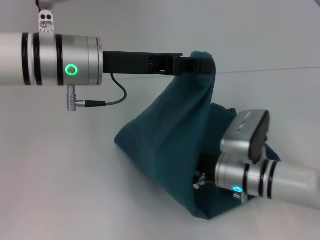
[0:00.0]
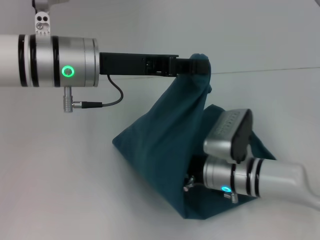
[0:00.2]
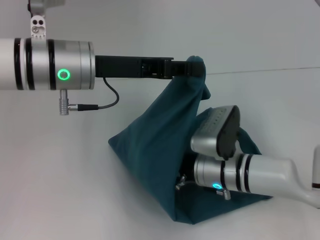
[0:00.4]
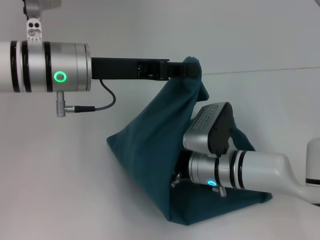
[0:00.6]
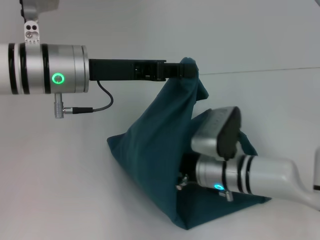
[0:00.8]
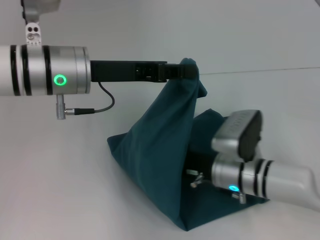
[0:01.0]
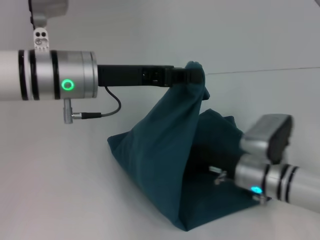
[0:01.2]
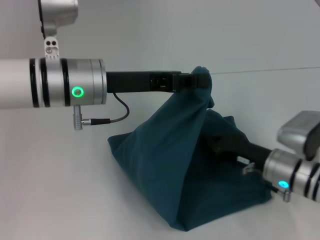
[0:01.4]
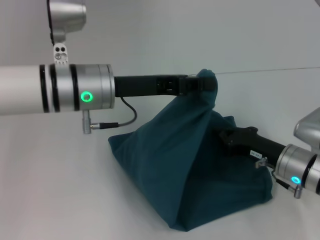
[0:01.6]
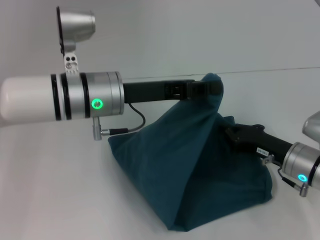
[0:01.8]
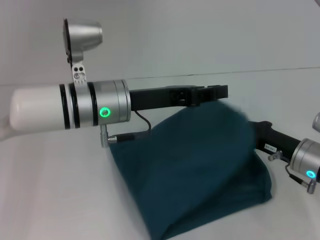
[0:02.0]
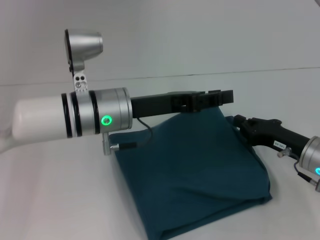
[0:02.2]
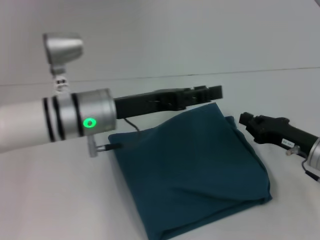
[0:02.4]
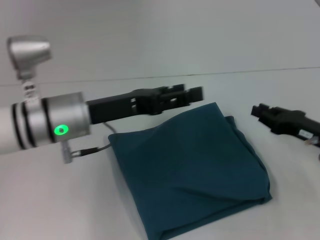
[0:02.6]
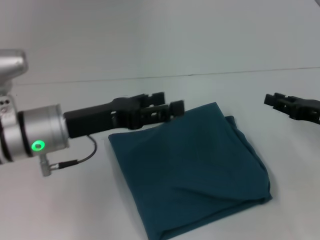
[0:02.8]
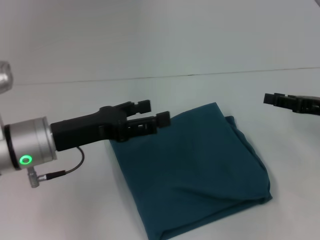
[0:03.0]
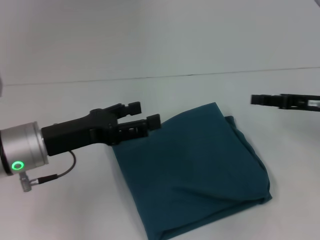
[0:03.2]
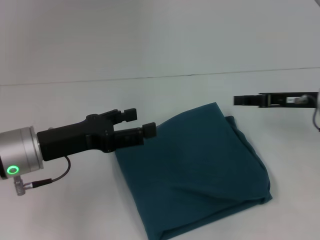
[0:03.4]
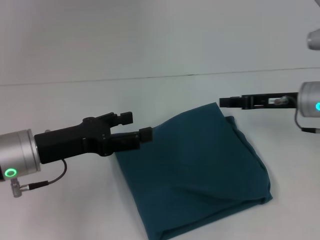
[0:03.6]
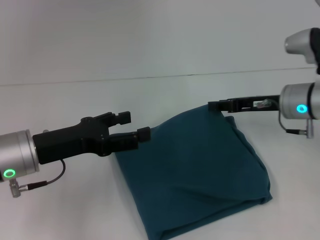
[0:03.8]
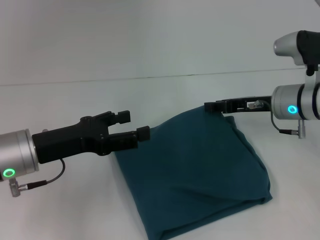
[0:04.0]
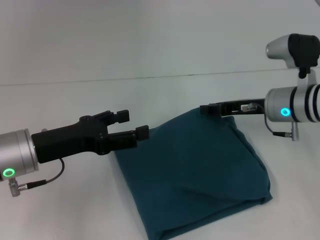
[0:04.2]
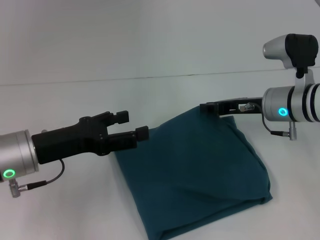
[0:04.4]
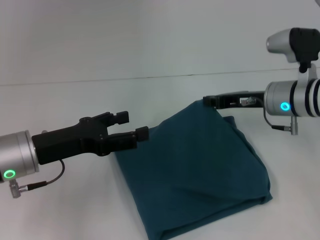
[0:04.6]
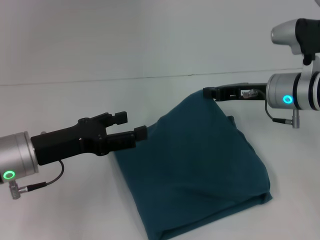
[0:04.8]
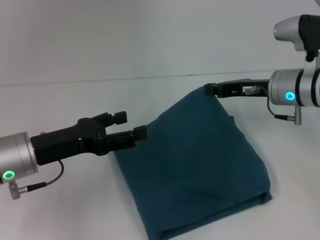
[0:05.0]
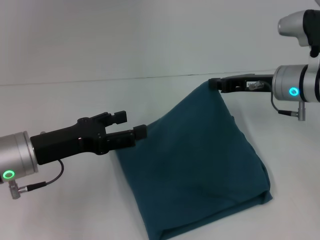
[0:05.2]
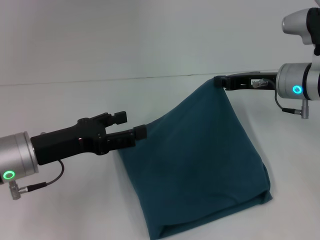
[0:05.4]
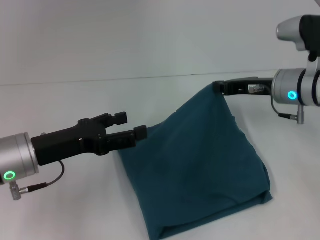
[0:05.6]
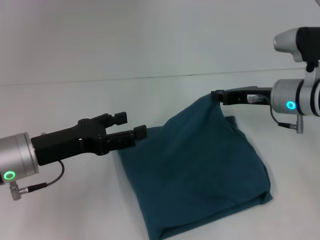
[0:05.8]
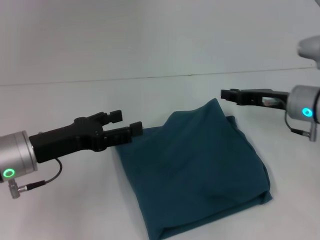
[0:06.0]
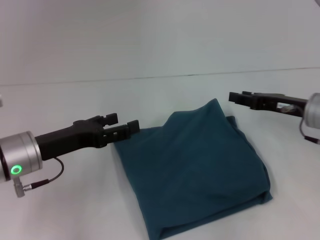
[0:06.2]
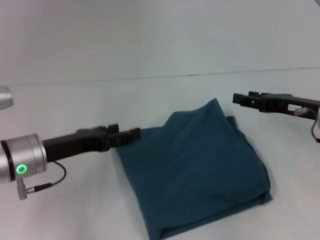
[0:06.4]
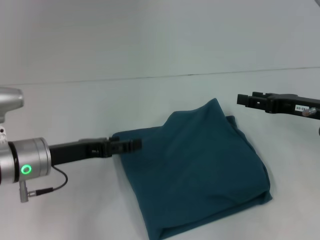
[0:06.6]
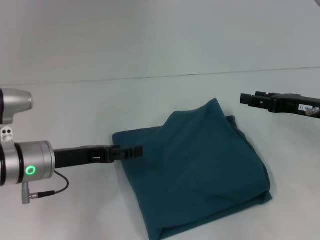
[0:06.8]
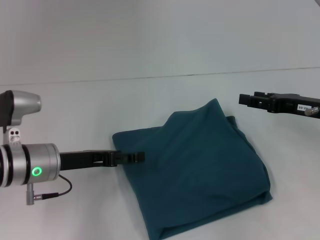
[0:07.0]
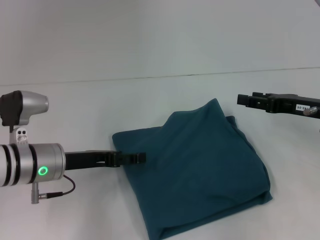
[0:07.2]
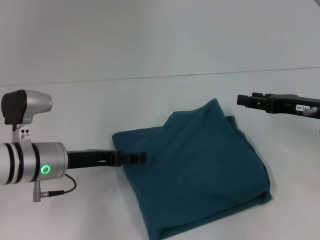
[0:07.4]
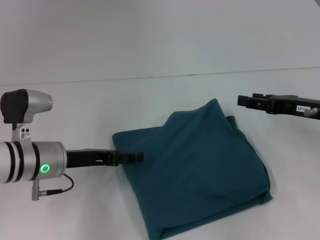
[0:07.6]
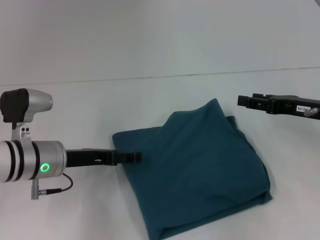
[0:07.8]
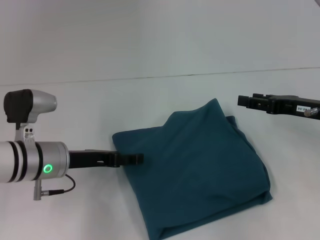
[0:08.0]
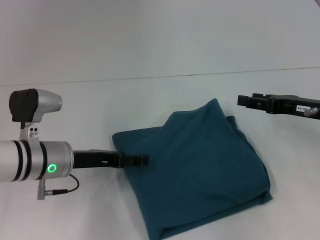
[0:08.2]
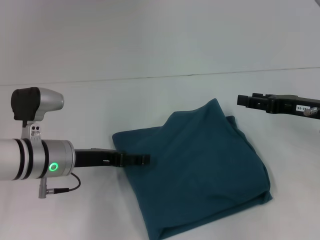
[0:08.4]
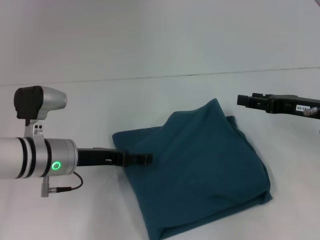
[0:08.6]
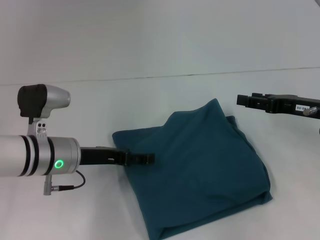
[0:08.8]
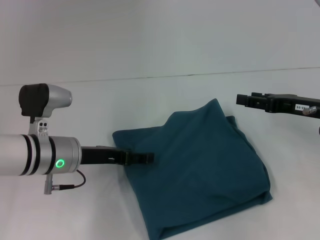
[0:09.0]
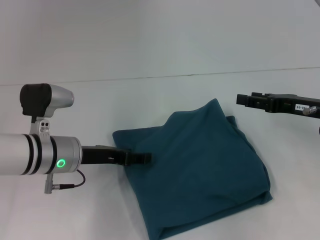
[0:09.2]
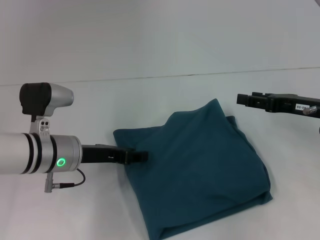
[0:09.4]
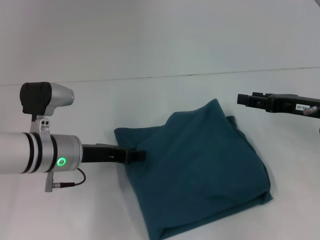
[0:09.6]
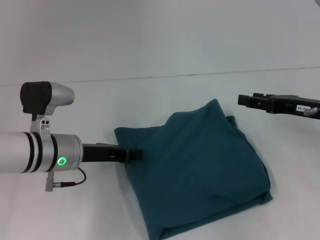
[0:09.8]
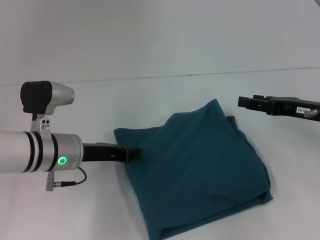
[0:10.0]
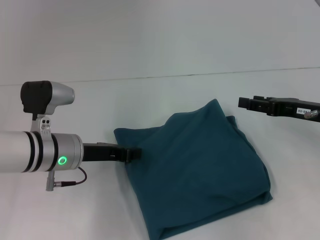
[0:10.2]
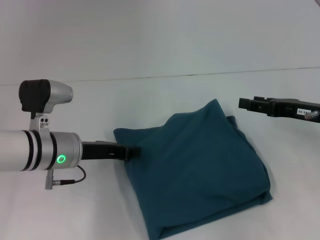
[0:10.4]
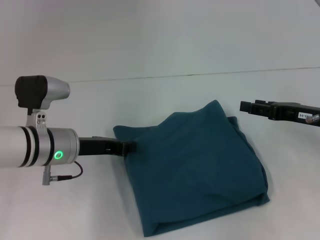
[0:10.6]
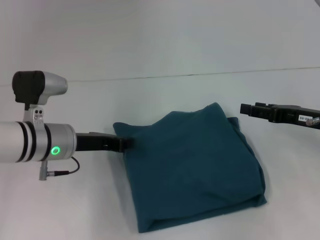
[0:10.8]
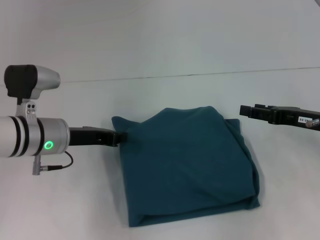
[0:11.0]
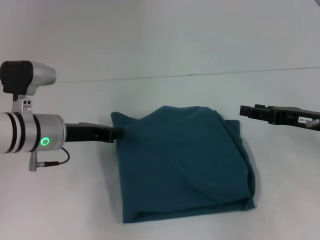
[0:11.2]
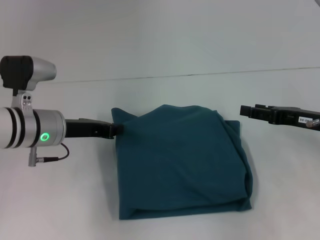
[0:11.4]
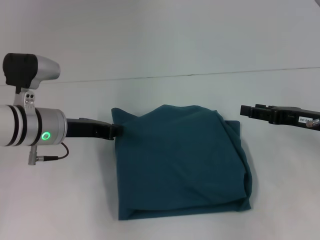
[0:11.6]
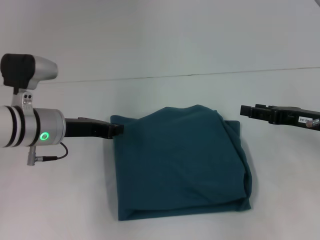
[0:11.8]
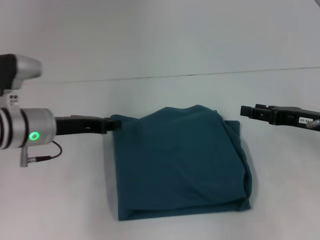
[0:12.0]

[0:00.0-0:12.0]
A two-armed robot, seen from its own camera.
Step, 0:01.2 to 0:02.2: Fold the clothes to the left.
0:00.0 to 0:01.6: The right gripper heads to the right, covering roughly 10 cm.
0:01.6 to 0:03.0: The left gripper goes about 10 cm to the left and backward, and opens up. Meanwhile the right gripper moves to the right and upward, about 15 cm, and opens its fingers.
0:03.0 to 0:04.4: The right gripper goes some 15 cm to the left and forward.
0:04.4 to 0:06.0: The grippers make only small movements.
0:06.0 to 0:07.6: The right gripper moves roughly 5 cm, and opens its fingers, while the left gripper ends up about 5 cm from where it was.
0:07.6 to 0:09.0: There are only small adjustments of the grippers.
0:09.0 to 0:10.4: The left gripper closes its fingers.

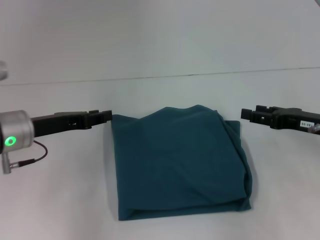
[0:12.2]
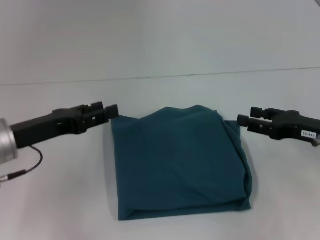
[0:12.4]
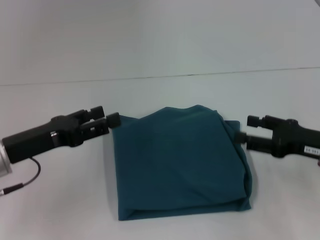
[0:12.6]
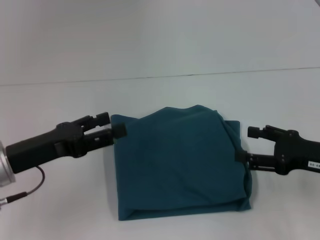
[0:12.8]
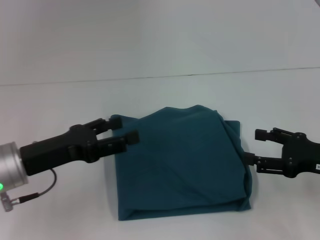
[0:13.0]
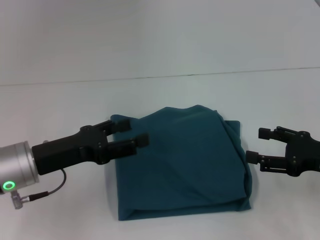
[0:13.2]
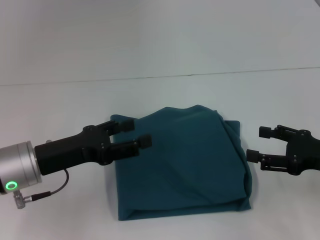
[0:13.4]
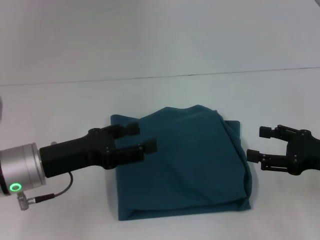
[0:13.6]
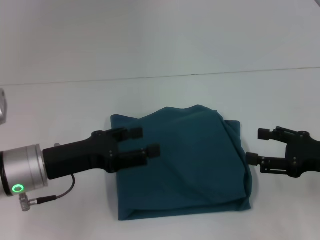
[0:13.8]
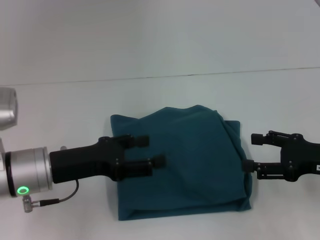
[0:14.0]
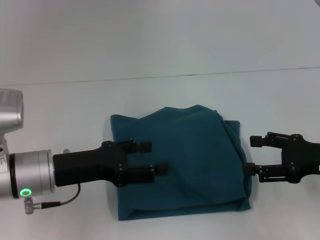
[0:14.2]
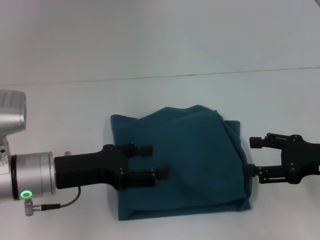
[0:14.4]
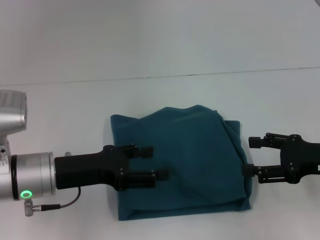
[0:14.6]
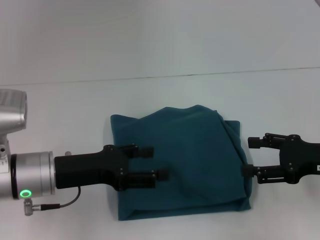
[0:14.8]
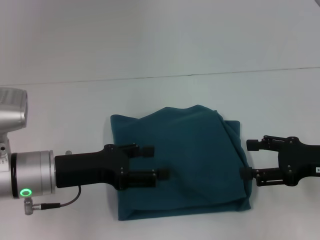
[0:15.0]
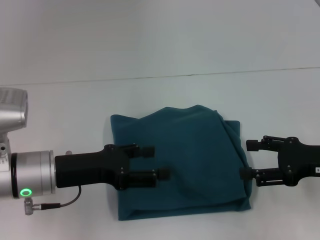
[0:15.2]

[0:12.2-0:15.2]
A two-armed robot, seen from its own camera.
0:12.2 to 0:13.8: Both grippers travel together backward, approximately 5 cm. The left gripper opens up.
0:13.8 to 0:15.2: The grippers make only small movements.

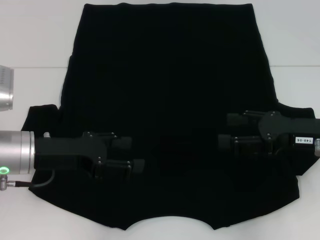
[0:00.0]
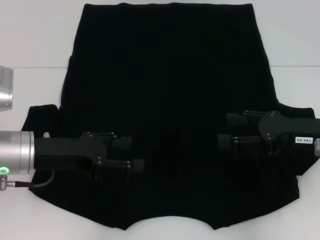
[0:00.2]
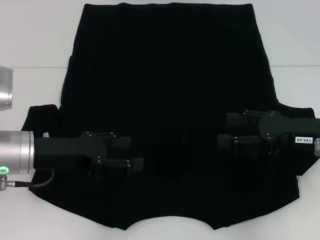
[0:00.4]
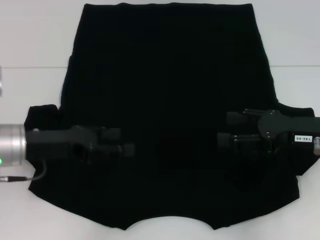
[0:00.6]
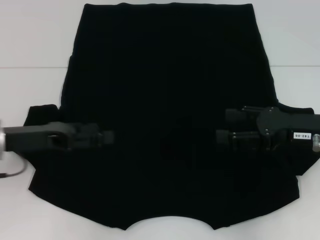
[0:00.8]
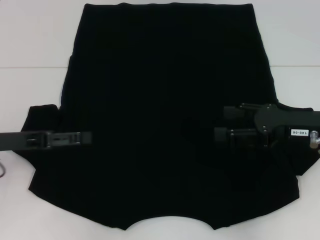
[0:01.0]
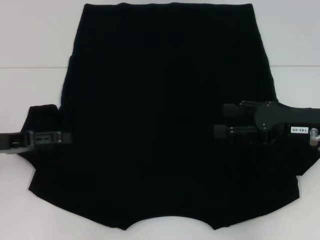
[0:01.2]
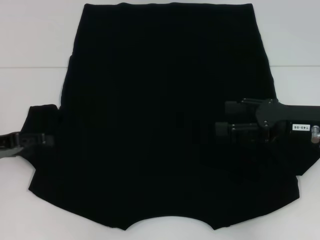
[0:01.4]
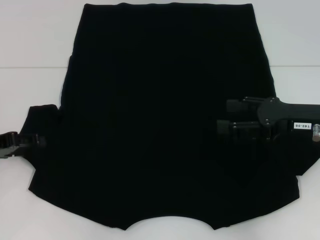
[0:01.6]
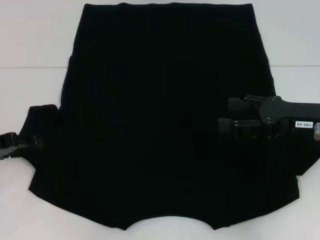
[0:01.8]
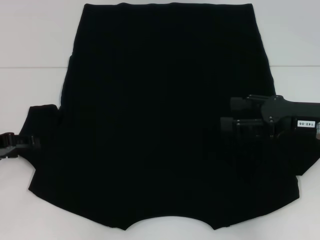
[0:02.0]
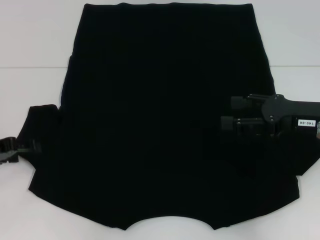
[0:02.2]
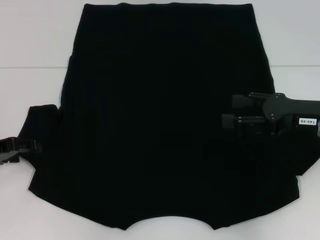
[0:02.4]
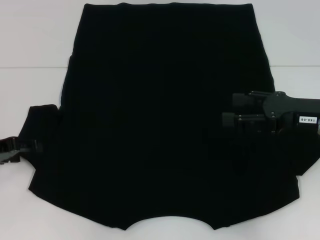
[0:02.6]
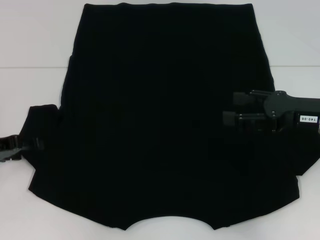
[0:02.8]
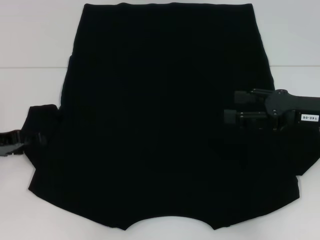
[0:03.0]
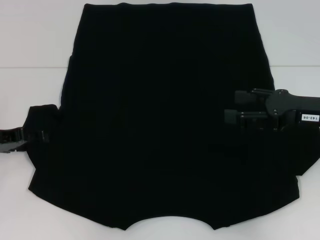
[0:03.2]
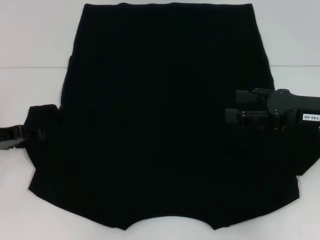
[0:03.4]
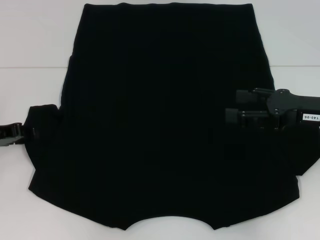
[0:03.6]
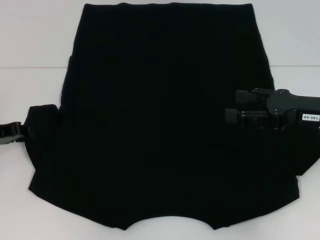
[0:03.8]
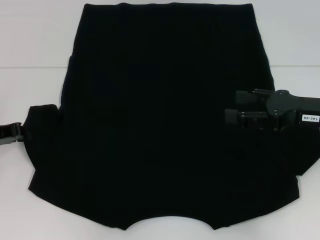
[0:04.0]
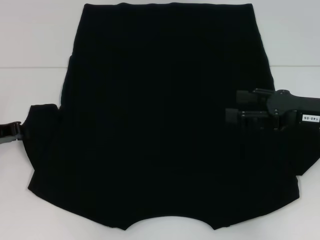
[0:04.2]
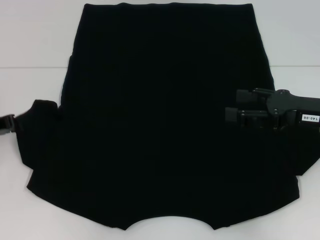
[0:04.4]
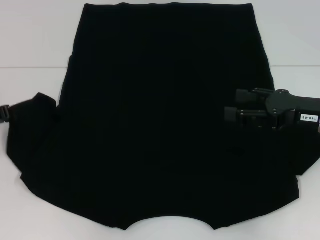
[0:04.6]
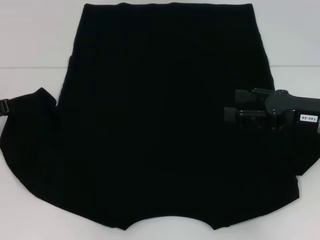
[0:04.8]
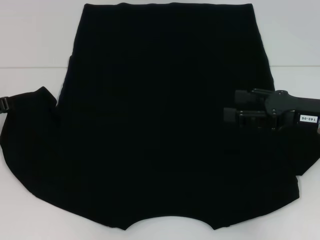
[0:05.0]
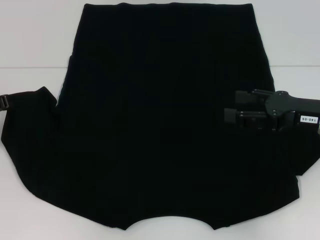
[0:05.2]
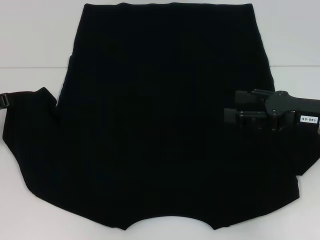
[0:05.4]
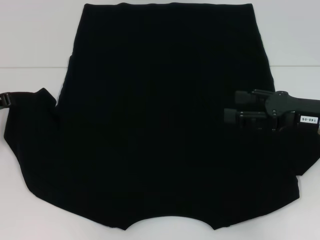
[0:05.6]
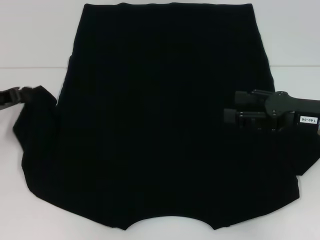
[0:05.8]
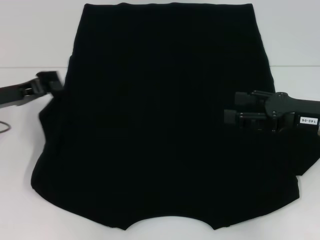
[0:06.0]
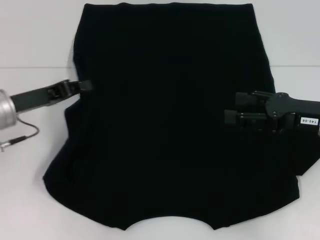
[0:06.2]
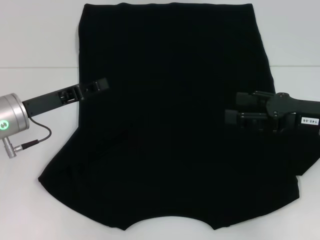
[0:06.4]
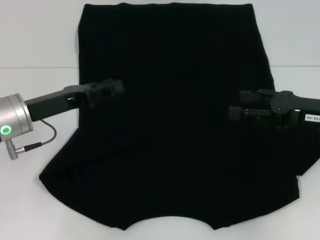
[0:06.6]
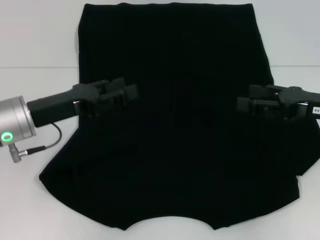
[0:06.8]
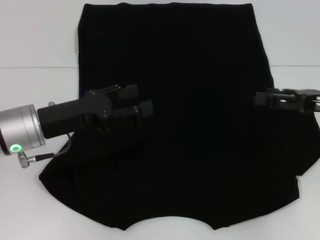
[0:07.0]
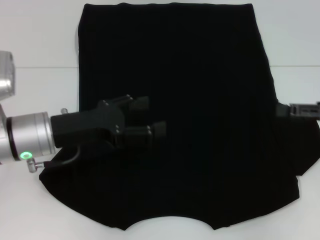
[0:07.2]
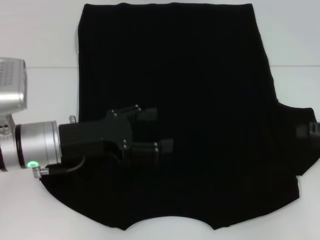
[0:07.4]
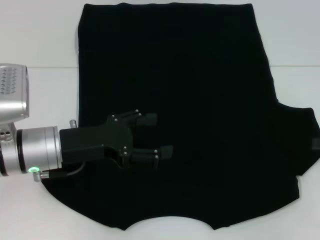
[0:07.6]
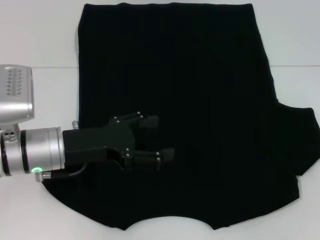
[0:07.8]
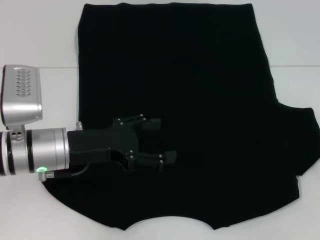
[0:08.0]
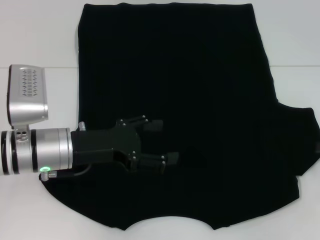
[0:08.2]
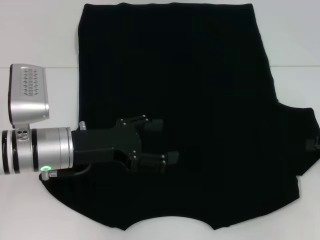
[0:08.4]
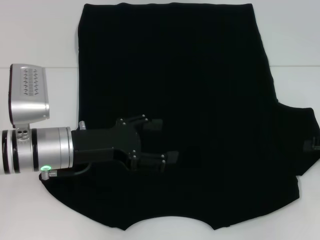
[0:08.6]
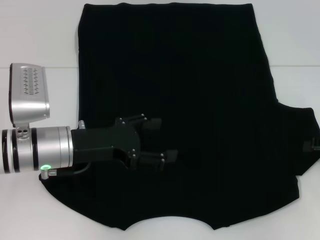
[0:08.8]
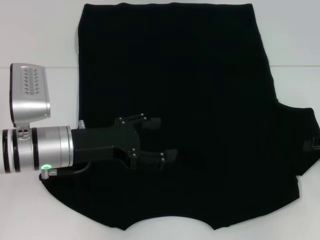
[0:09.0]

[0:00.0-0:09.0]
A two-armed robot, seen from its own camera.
Step, 0:00.0 to 0:06.2: Fold the bottom left sleeve with your left hand.
0:00.0 to 0:01.6: The left gripper goes approximately 10 cm to the left.
0:01.6 to 0:03.0: The grippers make only small movements.
0:03.0 to 0:04.4: The left gripper closes up.
0:06.0 to 0:07.6: Both grippers move to the right, roughly 10 cm. The left gripper opens up.
0:07.6 to 0:09.0: The grippers stay close to where they were, moving slightly.
